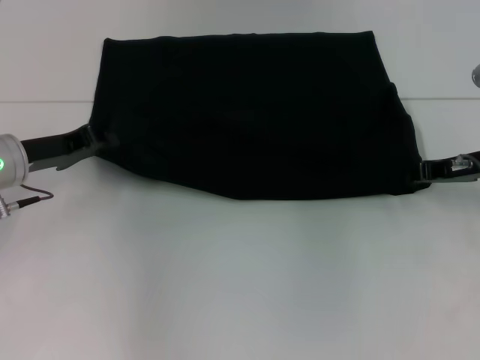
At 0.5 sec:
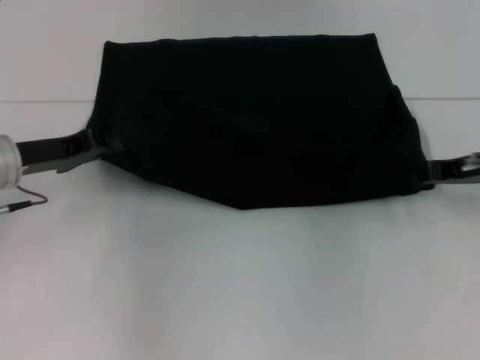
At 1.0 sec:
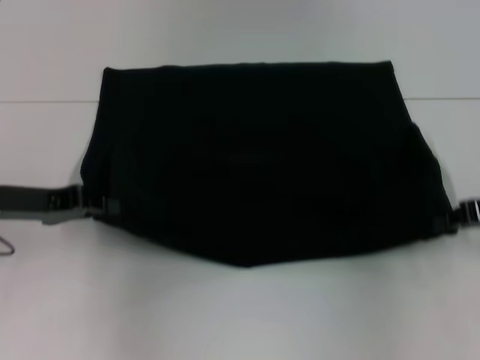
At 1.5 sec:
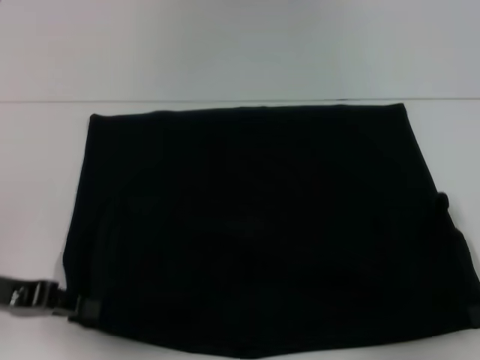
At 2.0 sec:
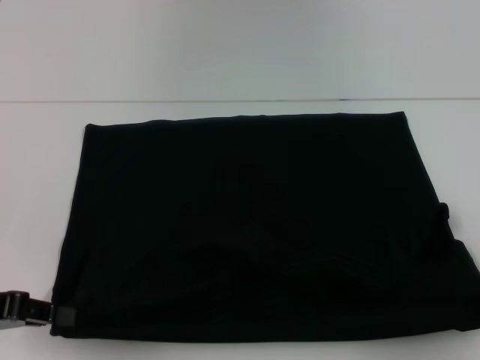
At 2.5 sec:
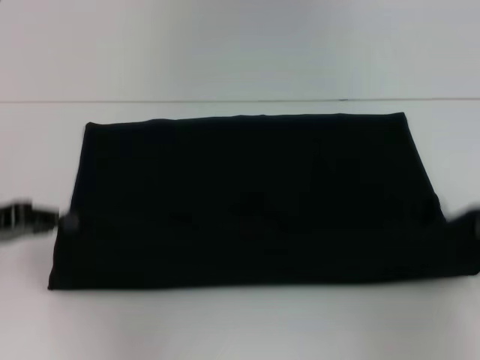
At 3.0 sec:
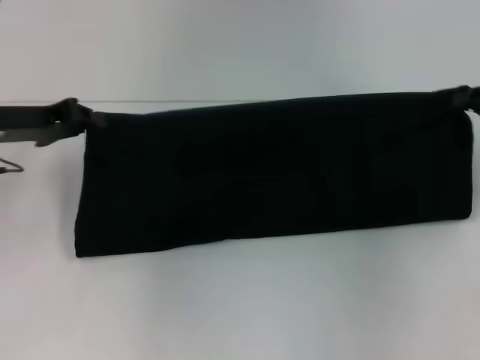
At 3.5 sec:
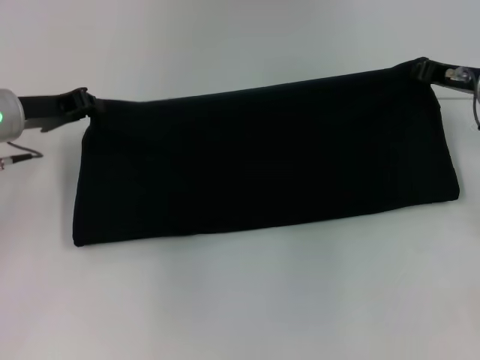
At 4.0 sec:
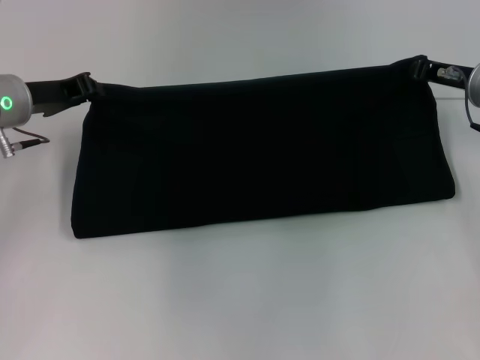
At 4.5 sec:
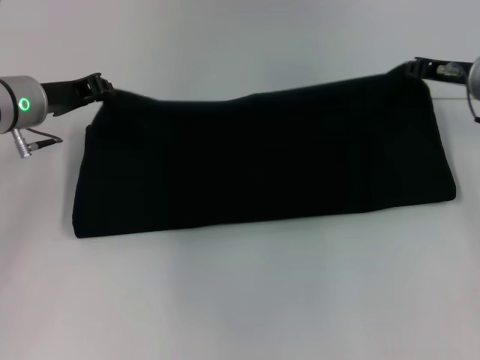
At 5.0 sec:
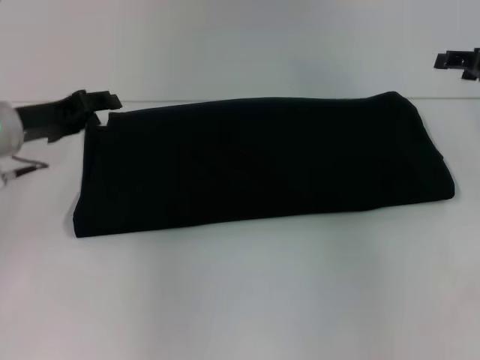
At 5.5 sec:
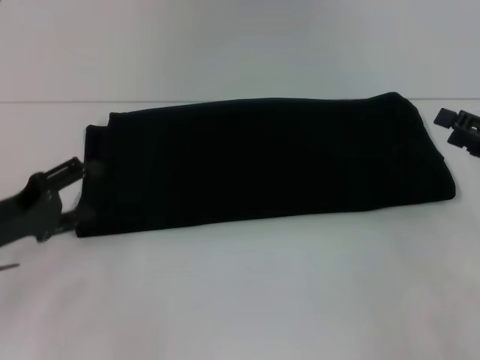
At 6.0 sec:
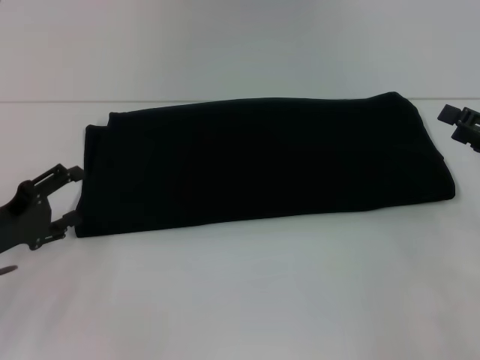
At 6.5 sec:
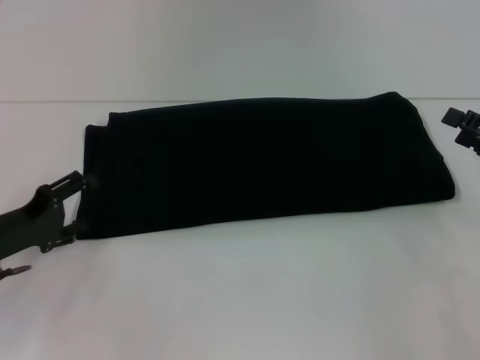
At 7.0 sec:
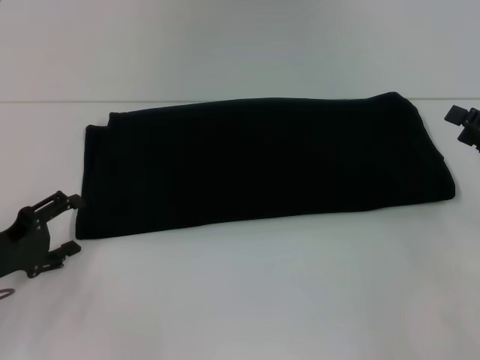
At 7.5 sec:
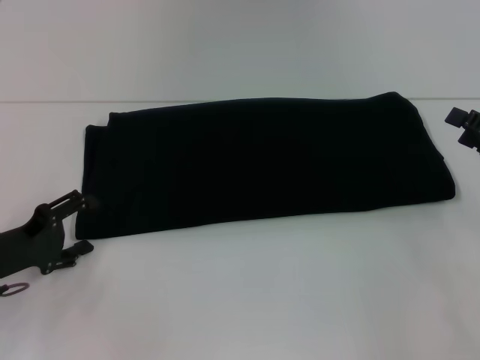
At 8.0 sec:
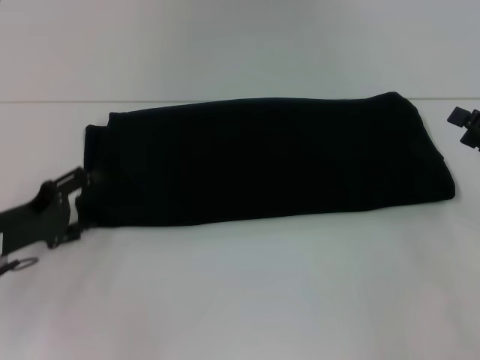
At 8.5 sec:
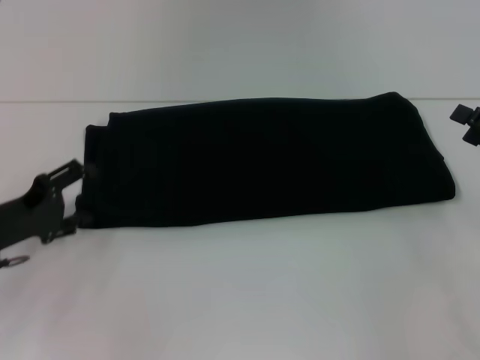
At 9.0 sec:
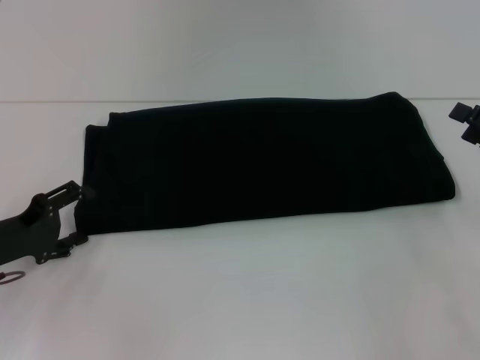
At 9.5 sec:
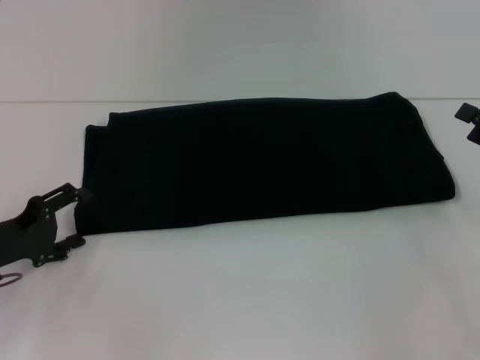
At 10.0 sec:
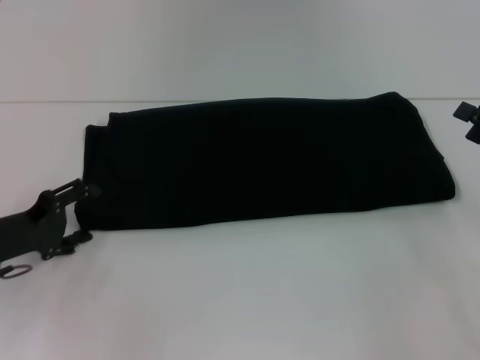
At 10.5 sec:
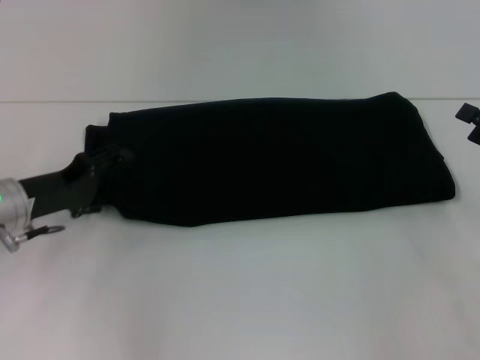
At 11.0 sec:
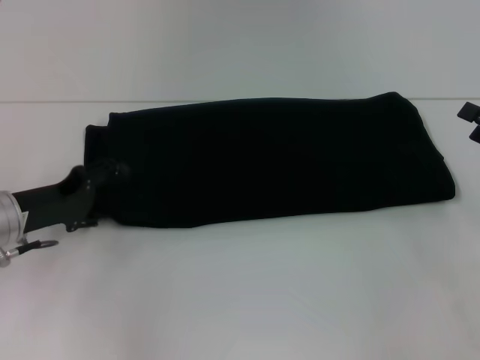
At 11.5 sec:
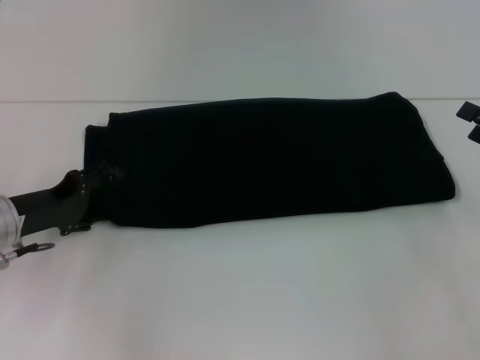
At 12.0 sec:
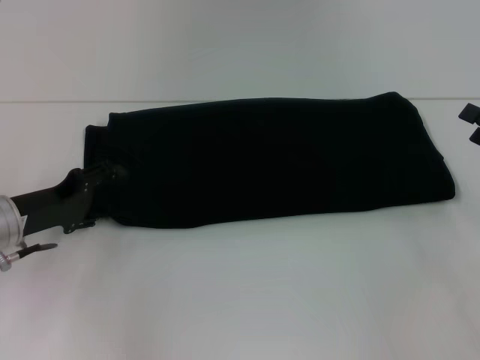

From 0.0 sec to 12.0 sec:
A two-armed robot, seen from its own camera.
Step, from 2.0 sec to 5.5 sec: Fold the clothes with your right hand.
From 0.0 sec to 2.0 sec: The left gripper travels backward and to the left by about 15 cm, while the right gripper heads backward and to the right, covering about 15 cm.
From 2.0 sec to 4.0 sec: The right gripper heads forward and to the left, covering roughly 20 cm. Meanwhile the left gripper moves forward, roughly 20 cm.
From 4.0 sec to 6.0 sec: The left gripper shifts approximately 15 cm backward and downward, and opens its fingers; the right gripper moves backward and to the right, about 15 cm, and opens its fingers.
From 6.0 sec to 10.0 sec: The grippers make only small movements.

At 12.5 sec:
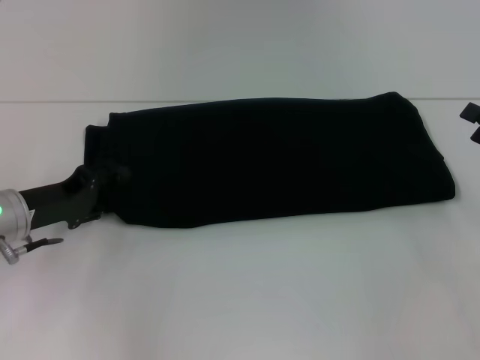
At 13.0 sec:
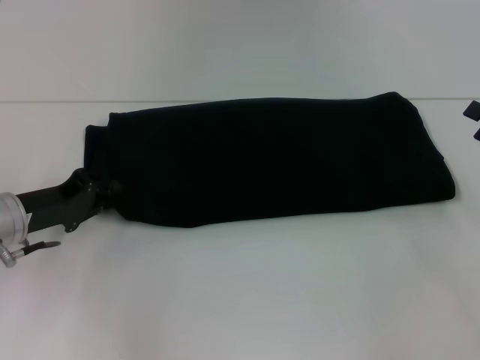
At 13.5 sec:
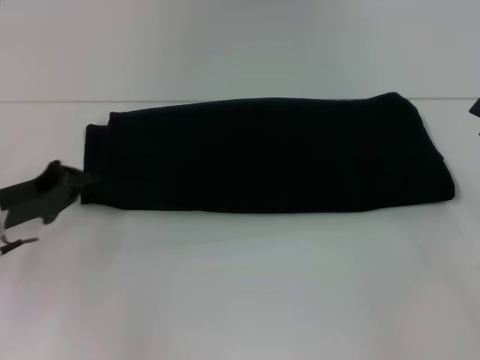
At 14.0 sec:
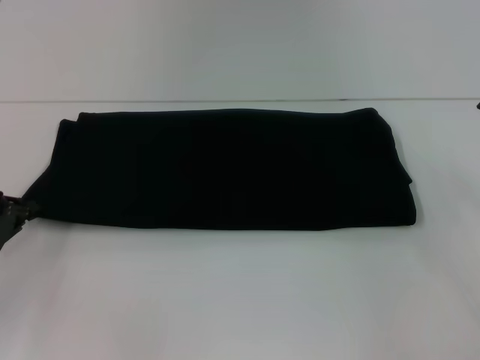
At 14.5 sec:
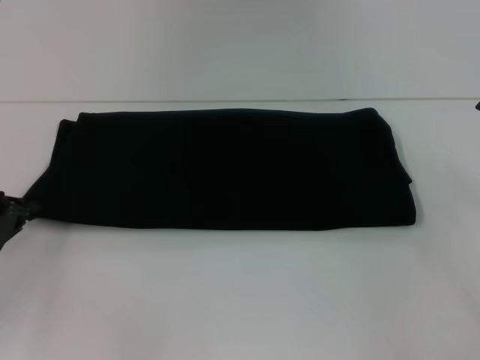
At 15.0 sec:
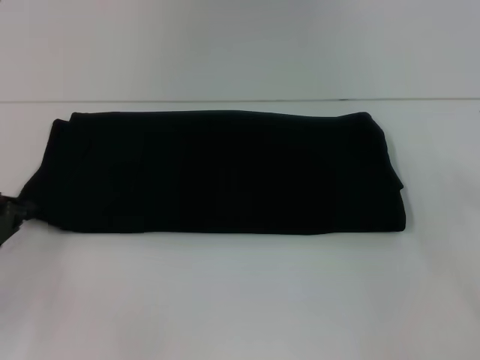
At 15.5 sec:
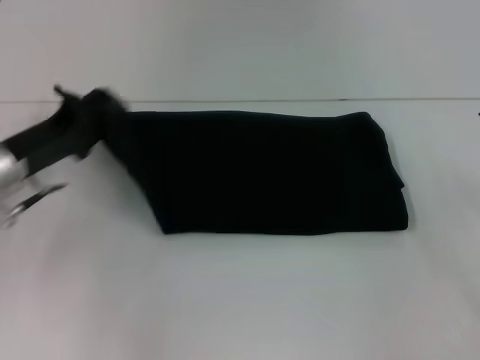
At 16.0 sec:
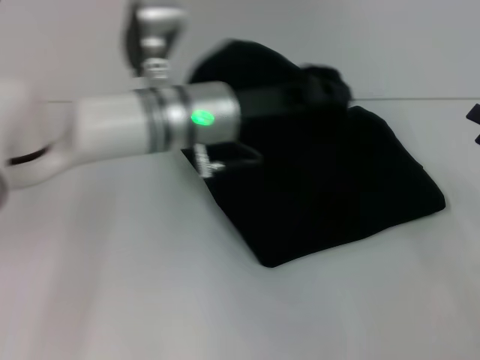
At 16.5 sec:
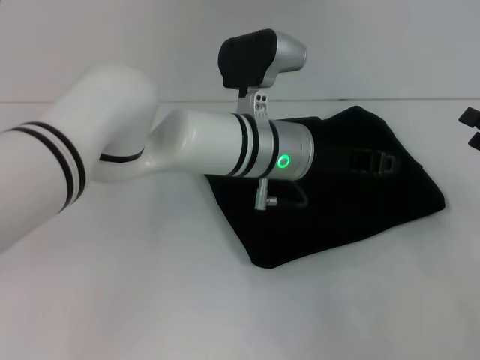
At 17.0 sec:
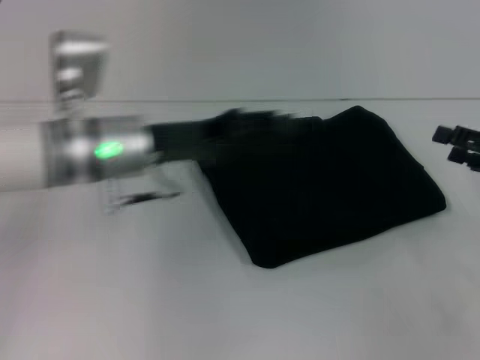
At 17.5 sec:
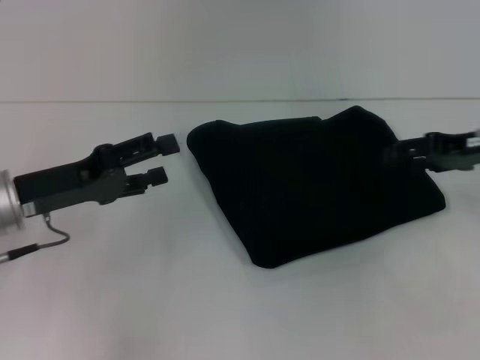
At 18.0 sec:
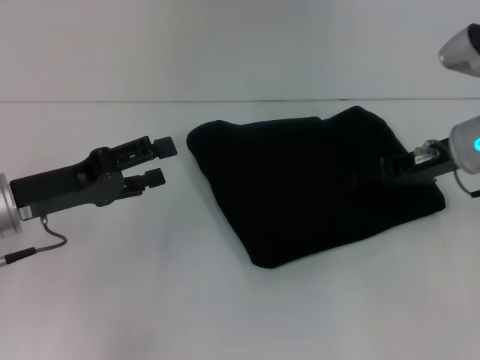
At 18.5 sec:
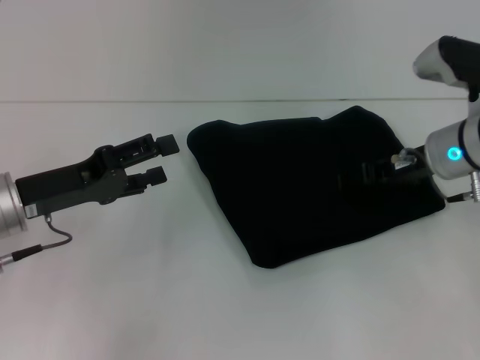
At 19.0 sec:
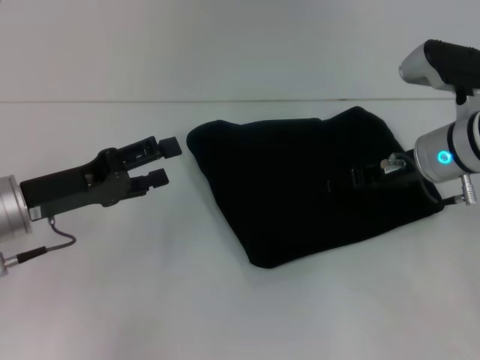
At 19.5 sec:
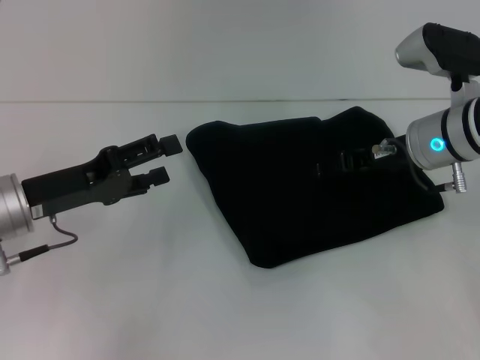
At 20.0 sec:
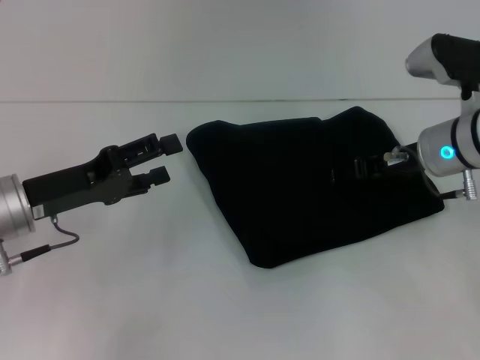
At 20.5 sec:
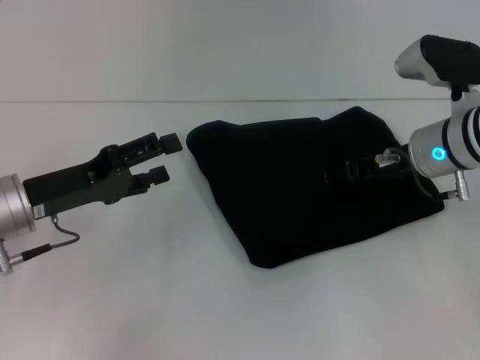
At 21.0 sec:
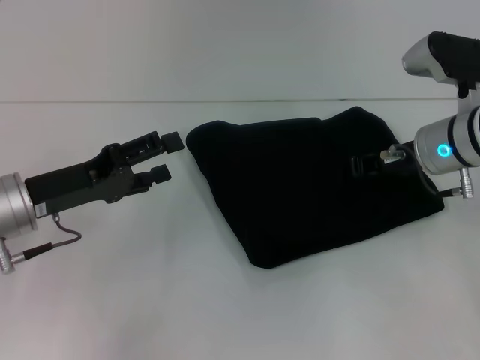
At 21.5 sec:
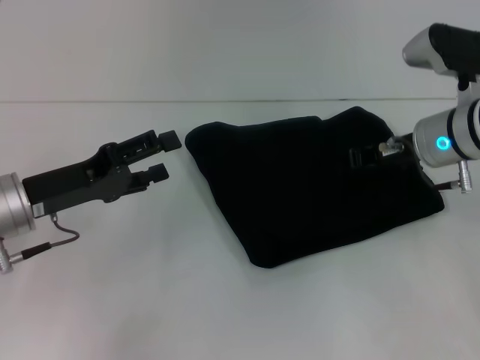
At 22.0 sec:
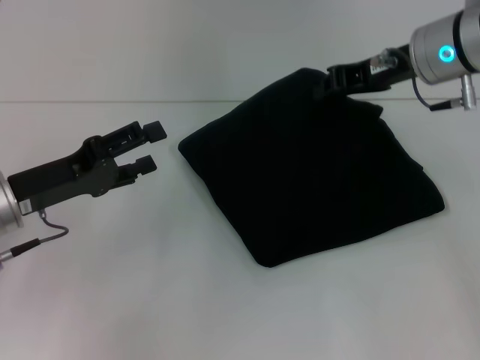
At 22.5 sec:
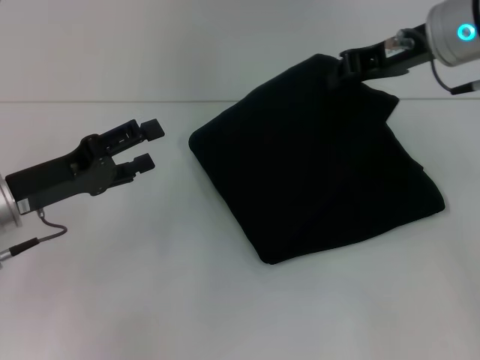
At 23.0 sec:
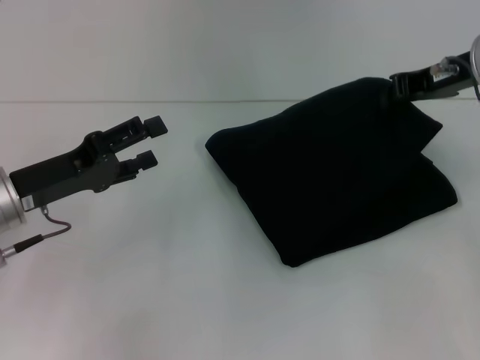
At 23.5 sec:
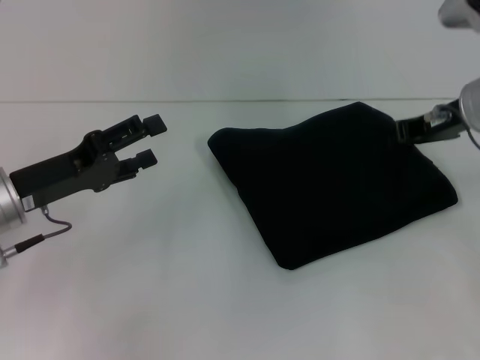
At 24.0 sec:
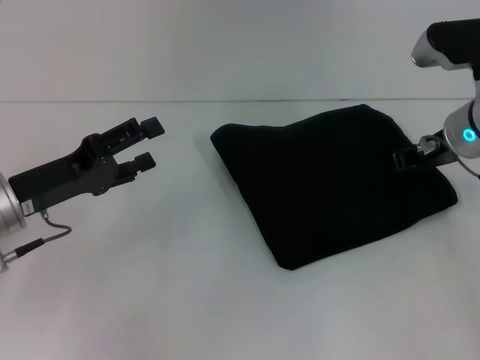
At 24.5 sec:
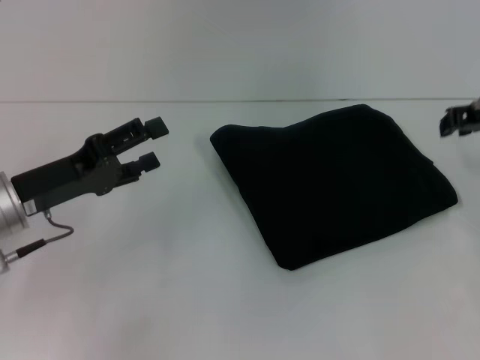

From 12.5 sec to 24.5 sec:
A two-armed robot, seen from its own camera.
Step, from 12.5 sec to 16.5 sec: Fold the clothes with your left hand.
From 12.5 sec to 14.5 sec: The left gripper heads to the left, covering about 5 cm, and closes.
From 14.5 sec to 16.5 sec: The left gripper shifts roughly 35 cm to the right.
From 16.5 sec to 18.5 sec: The left gripper travels to the left by approximately 25 cm, and opens. Meanwhile the right gripper shifts approximately 15 cm to the left and forward.
From 18.5 sec to 20.5 sec: There are only small adjustments of the grippers.
From 20.5 sec to 22.5 sec: The right gripper is displaced upward by approximately 15 cm, and closes up.
From 22.5 sec to 24.5 sec: The right gripper moves to the right and downward, about 10 cm.

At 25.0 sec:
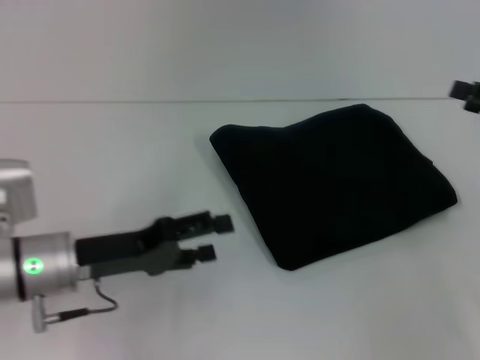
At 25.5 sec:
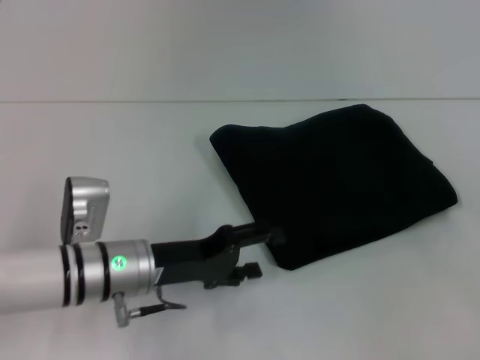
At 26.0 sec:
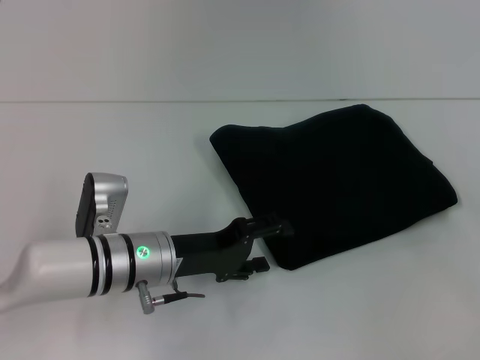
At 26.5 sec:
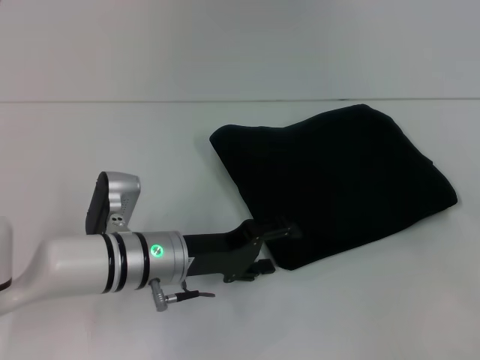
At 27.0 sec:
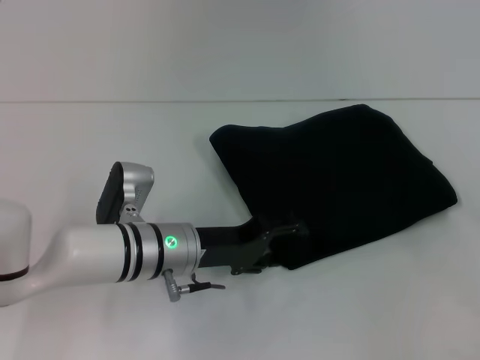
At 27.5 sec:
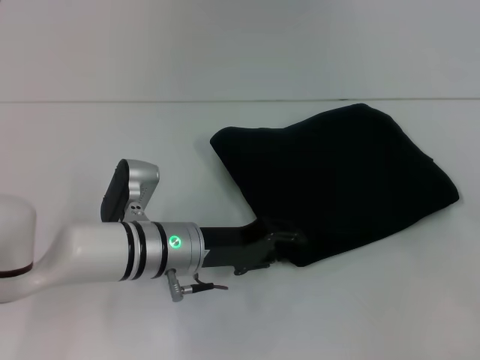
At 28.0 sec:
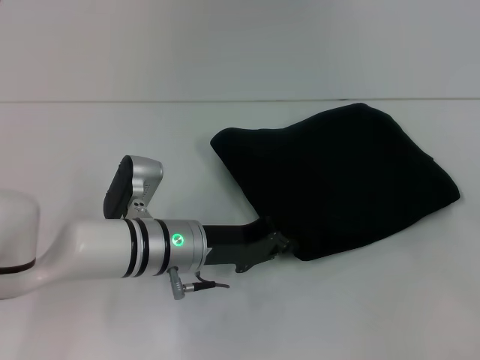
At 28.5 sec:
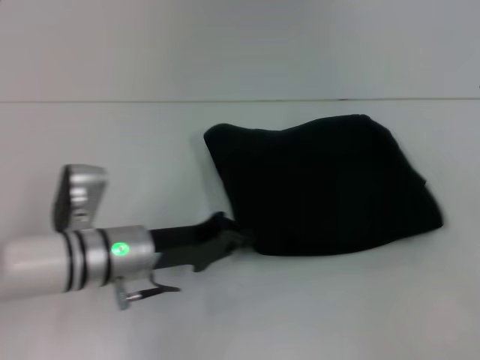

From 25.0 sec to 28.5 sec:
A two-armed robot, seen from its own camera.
From 25.0 sec to 27.0 sec: The left gripper is displaced to the right by about 10 cm, while the right gripper opens.
From 27.0 sec to 28.5 sec: The left gripper closes.
